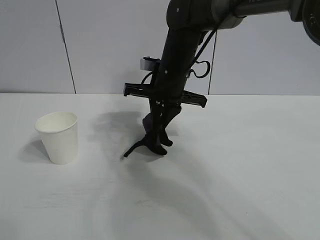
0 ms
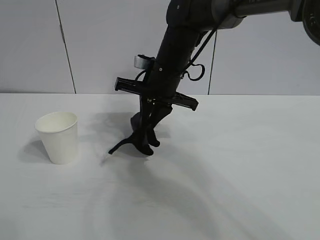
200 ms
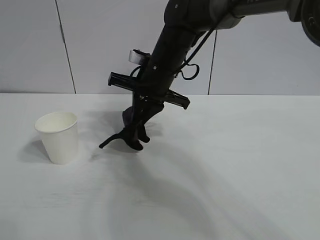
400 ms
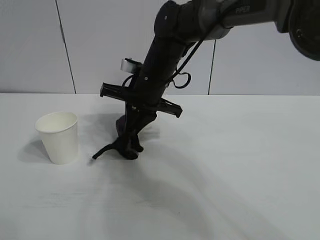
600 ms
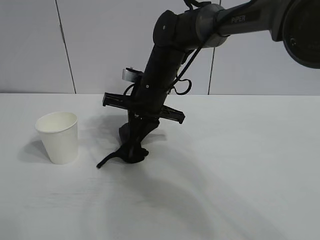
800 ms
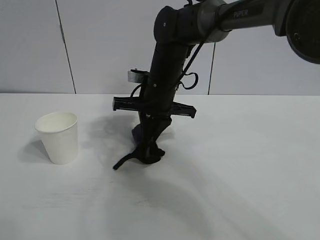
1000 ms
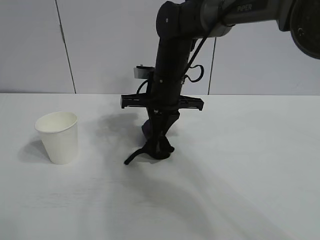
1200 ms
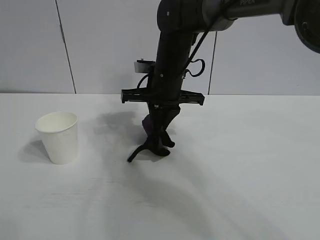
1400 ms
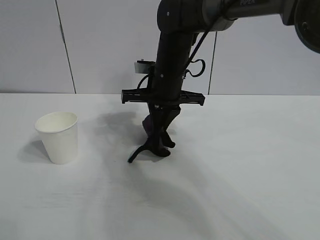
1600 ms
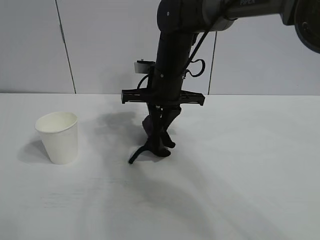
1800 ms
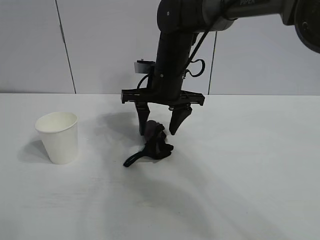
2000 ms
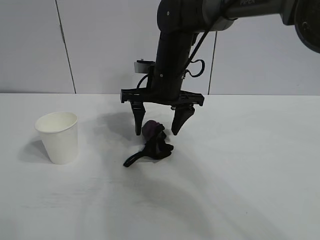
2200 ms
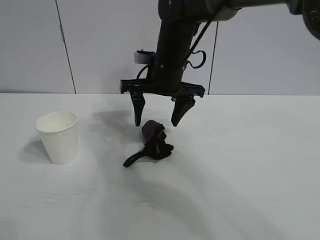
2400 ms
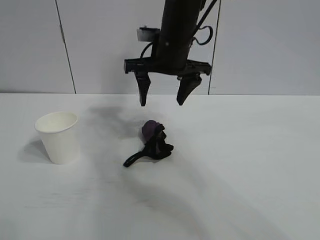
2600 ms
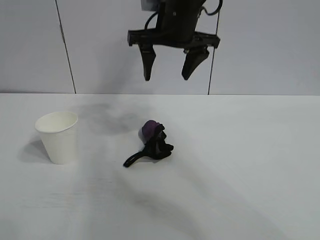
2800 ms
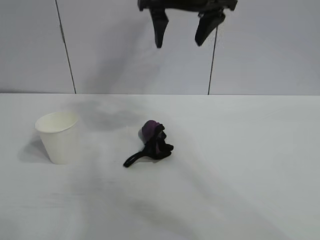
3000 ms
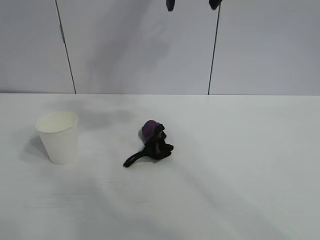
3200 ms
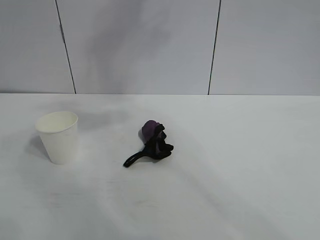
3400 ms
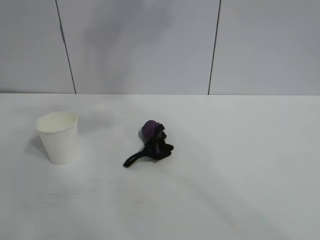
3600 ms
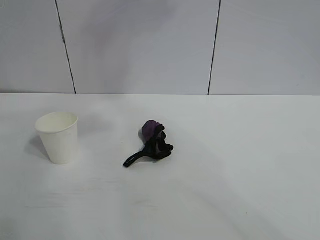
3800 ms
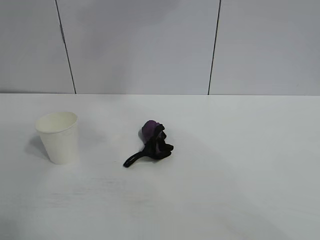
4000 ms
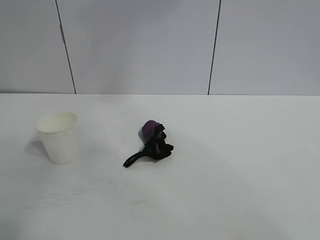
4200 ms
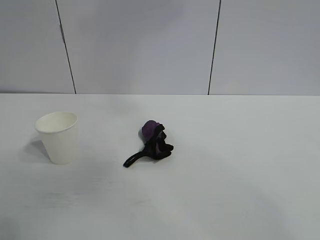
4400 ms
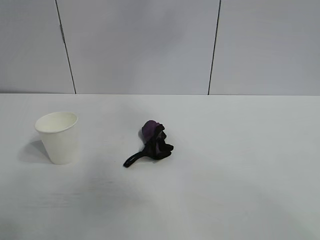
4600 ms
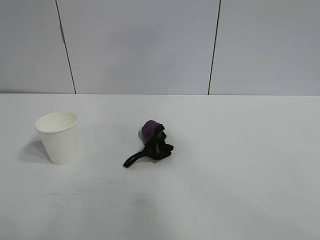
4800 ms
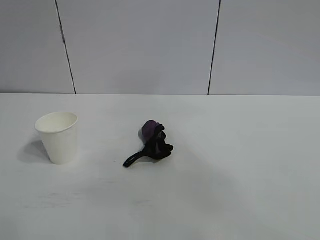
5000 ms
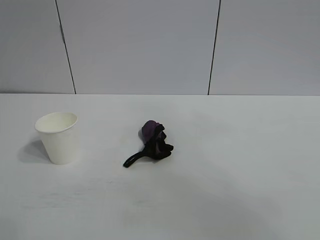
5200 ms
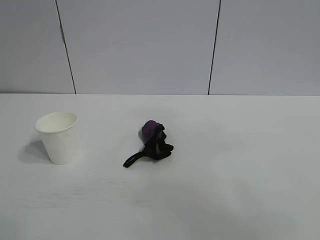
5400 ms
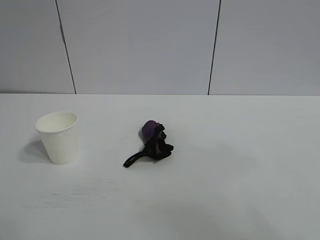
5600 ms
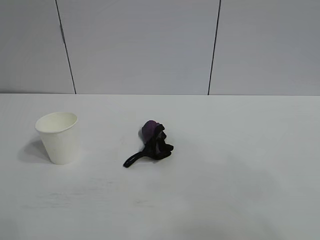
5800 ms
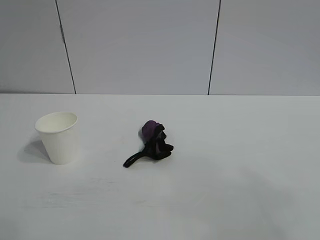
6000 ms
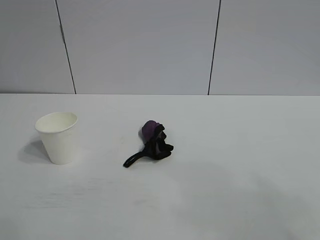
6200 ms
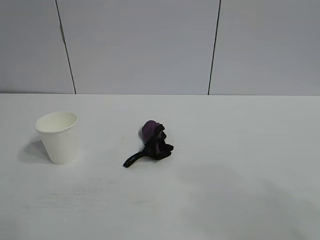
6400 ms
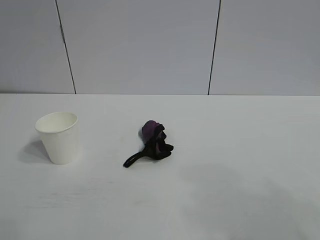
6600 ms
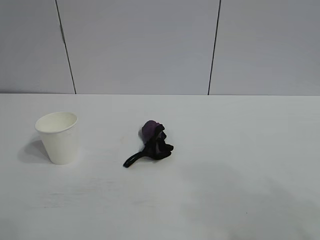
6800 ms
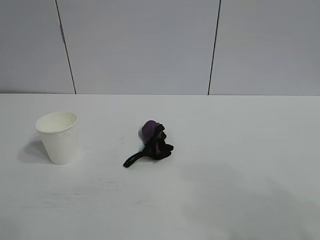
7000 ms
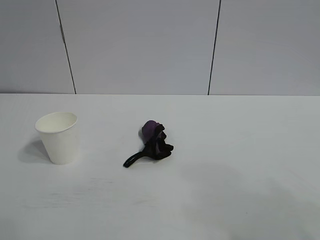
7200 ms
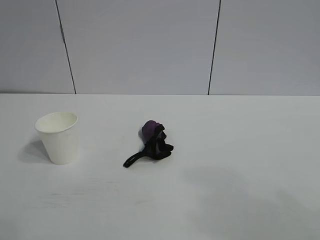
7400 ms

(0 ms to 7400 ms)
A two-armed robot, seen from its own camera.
Task of the whole recording: the left gripper pick up the fallen cup and place it upright, the right gripper grasp the black rag and wipe the stain on the table, the right gripper put the black rag back in its original position.
Step, 1200 ms - 1800 ms: Place the rag on the table with right gripper.
